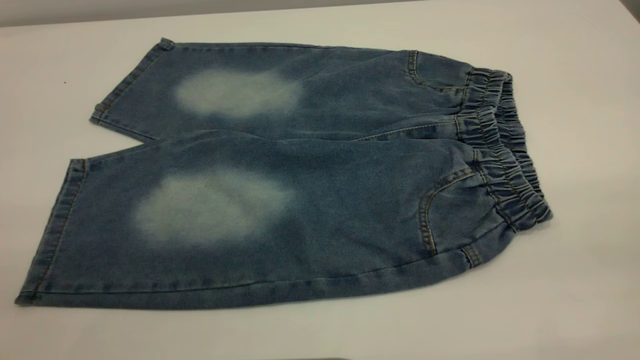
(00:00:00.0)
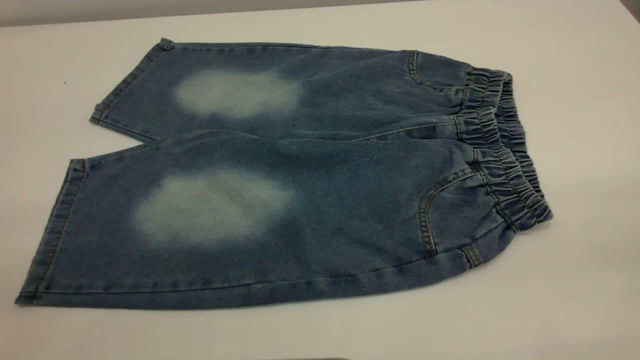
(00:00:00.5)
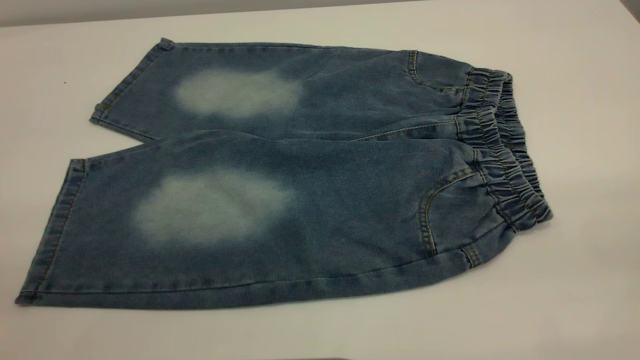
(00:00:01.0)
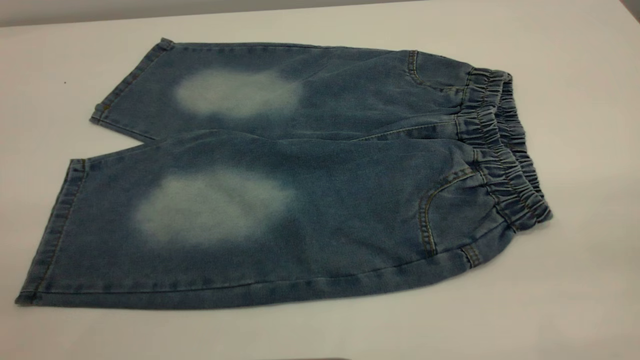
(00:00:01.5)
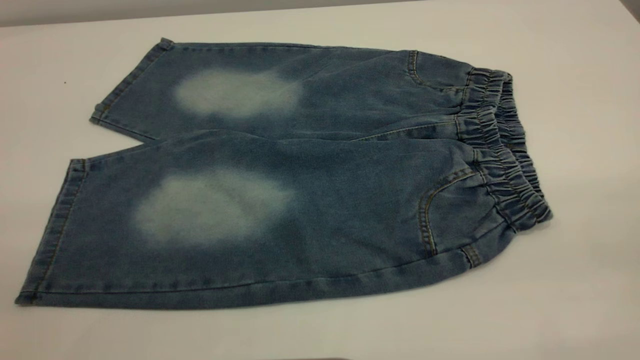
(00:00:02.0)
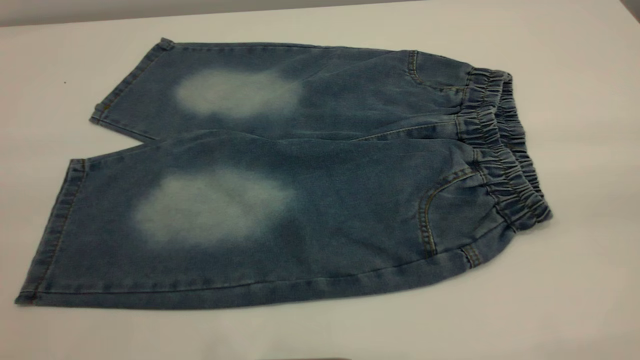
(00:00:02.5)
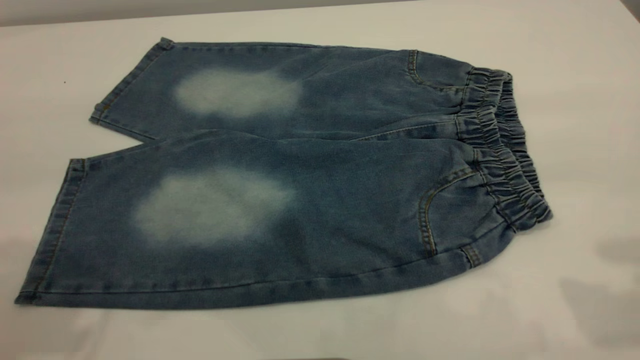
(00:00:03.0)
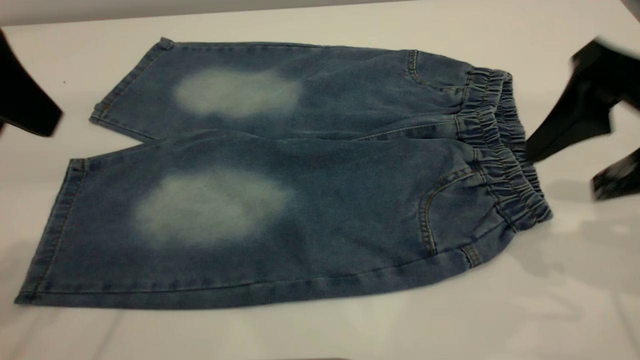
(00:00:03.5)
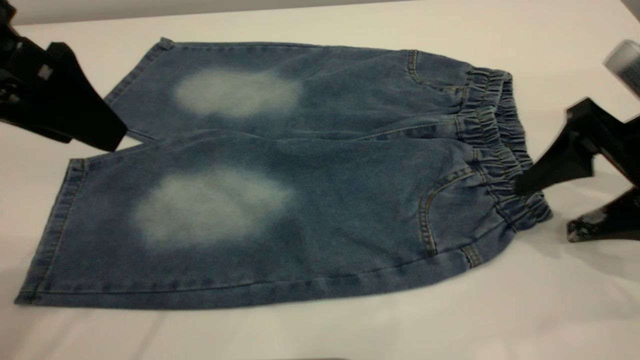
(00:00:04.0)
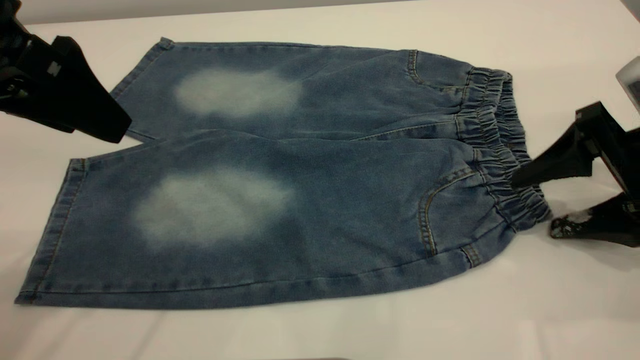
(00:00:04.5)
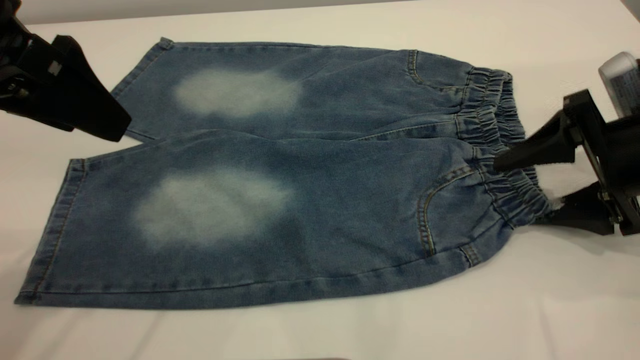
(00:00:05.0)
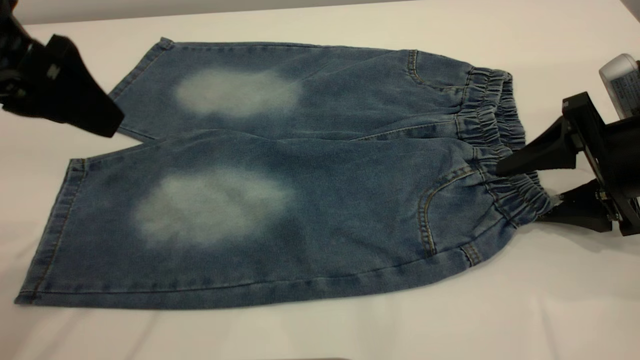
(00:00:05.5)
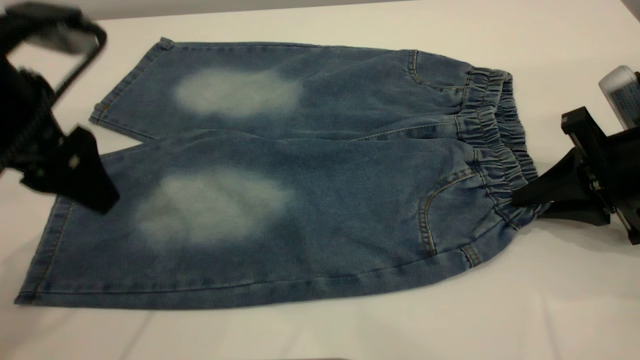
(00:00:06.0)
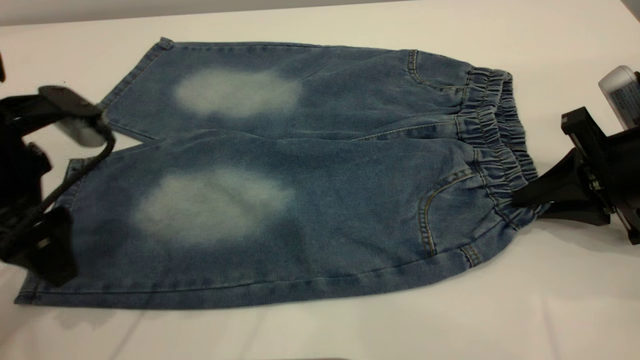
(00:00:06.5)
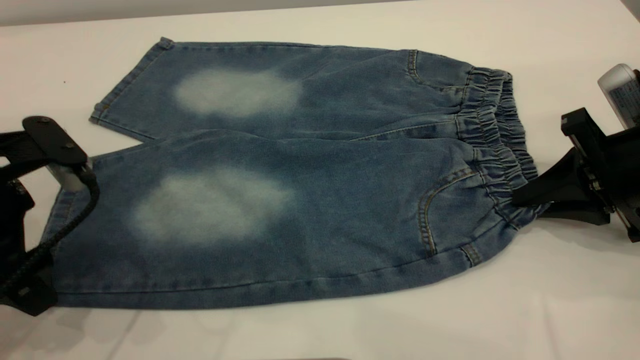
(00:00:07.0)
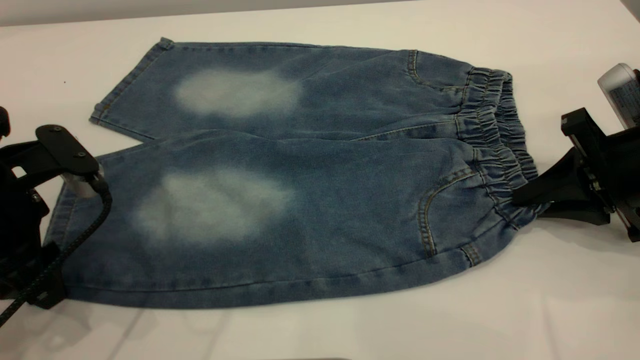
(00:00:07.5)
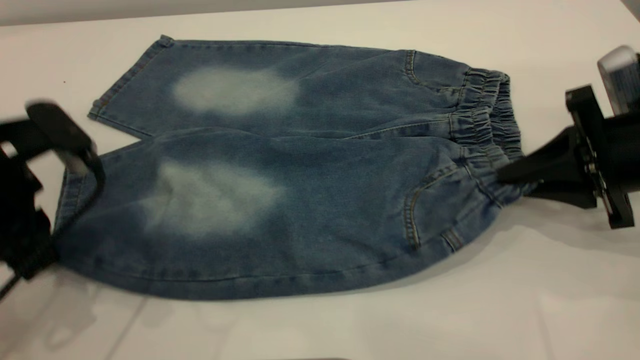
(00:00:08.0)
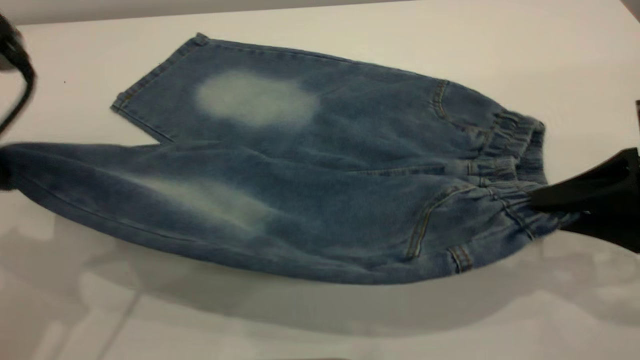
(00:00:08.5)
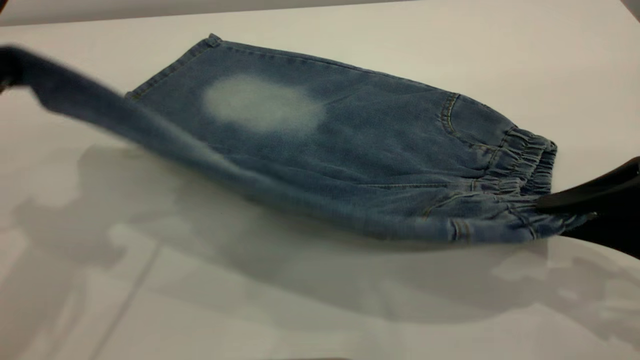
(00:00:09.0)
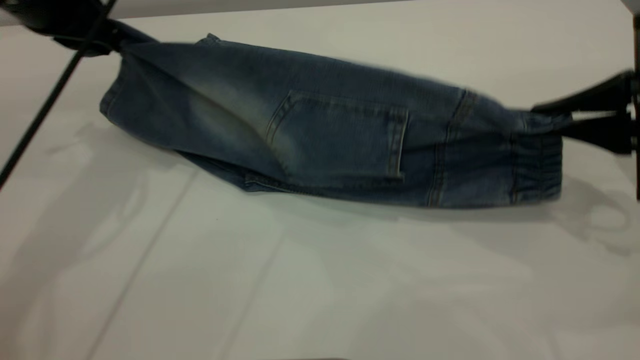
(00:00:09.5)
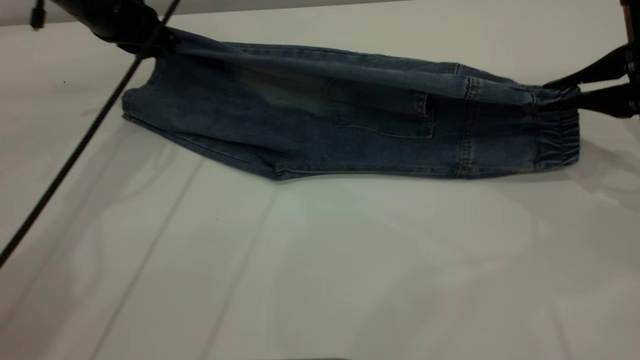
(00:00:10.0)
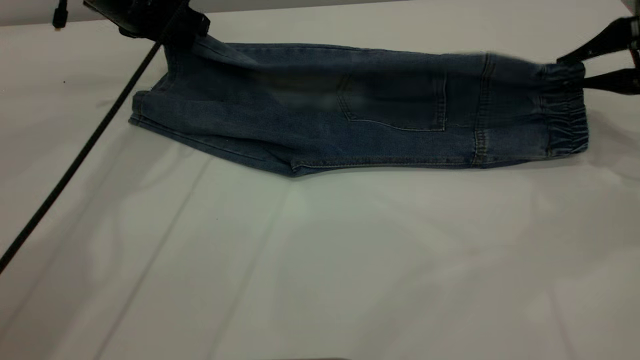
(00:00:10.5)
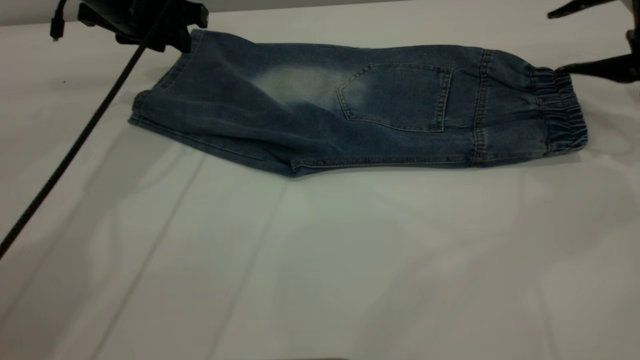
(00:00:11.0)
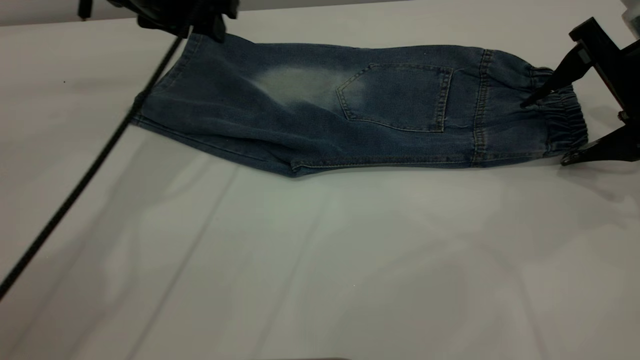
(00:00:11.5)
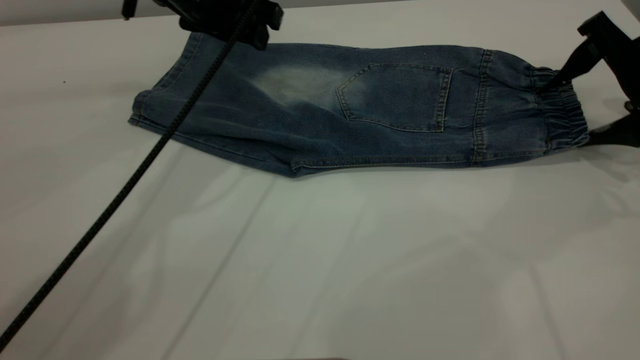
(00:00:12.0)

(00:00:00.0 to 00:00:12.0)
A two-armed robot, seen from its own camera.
Step, 00:00:00.0 - 00:00:11.0: Fold the bottom of the pants upward.
00:00:00.0 - 00:00:02.0: Both grippers stay about where they are.
00:00:02.0 - 00:00:04.0: The left gripper moves forward, roughly 25 cm, while the right gripper moves forward and downward, roughly 35 cm.
00:00:04.0 - 00:00:06.0: The right gripper closes its fingers. The left gripper shifts some 5 cm downward.
00:00:06.0 - 00:00:08.0: The left gripper closes.
00:00:08.0 - 00:00:10.0: The left gripper goes roughly 20 cm forward; the right gripper ends up about 10 cm from where it was.
00:00:10.0 - 00:00:12.0: The left gripper travels to the right by some 10 cm, and opens; the right gripper opens its fingers.

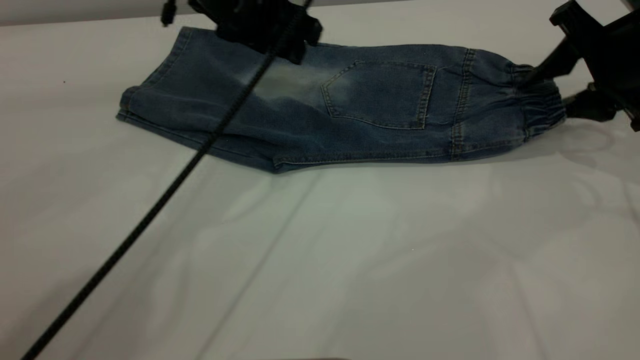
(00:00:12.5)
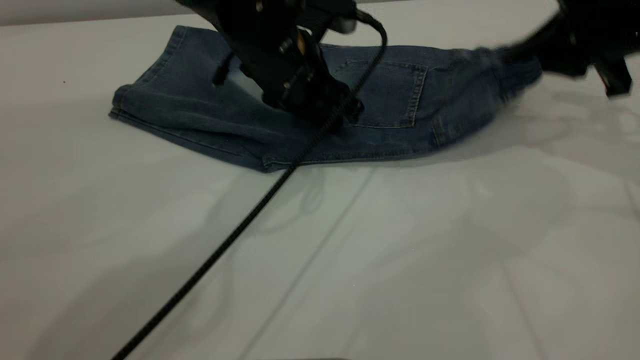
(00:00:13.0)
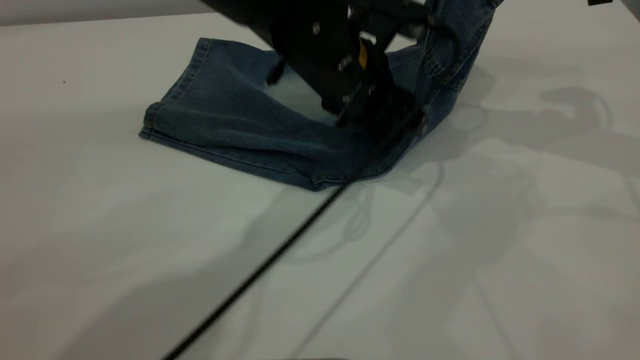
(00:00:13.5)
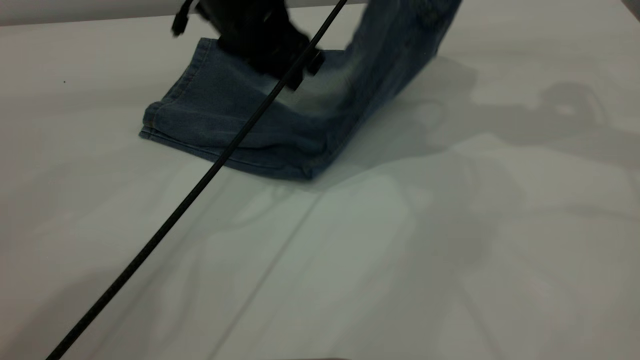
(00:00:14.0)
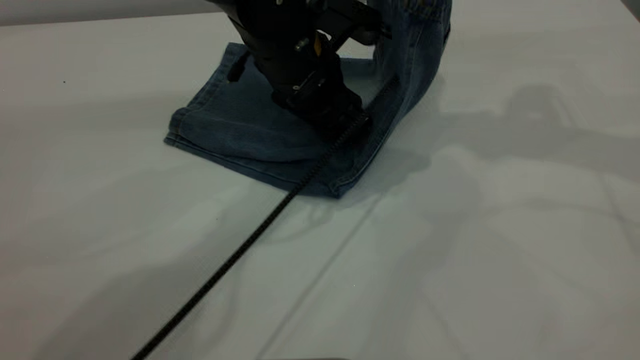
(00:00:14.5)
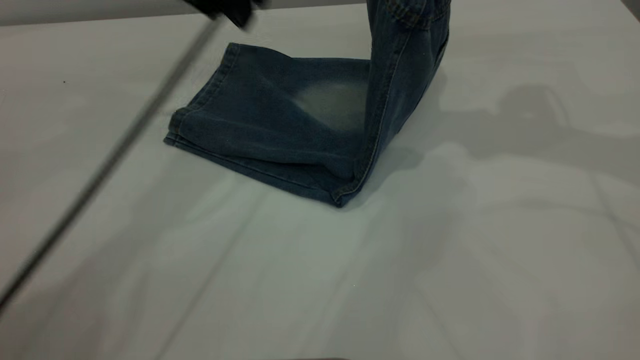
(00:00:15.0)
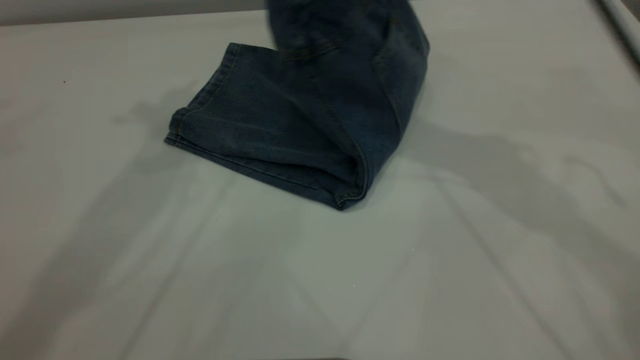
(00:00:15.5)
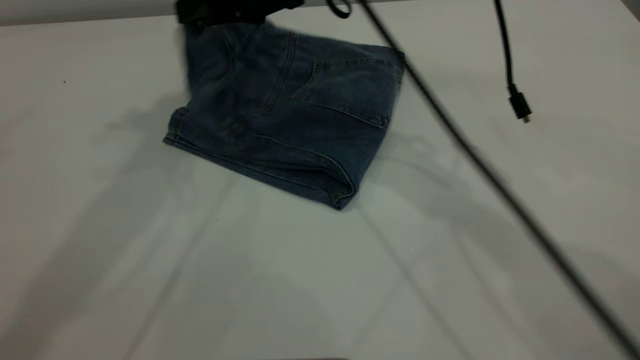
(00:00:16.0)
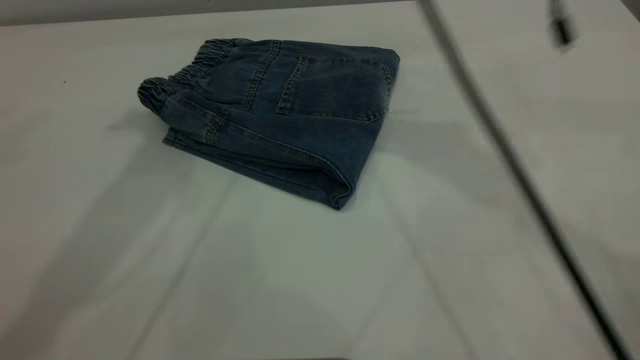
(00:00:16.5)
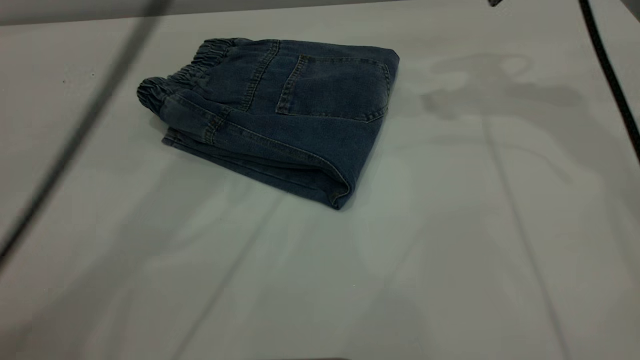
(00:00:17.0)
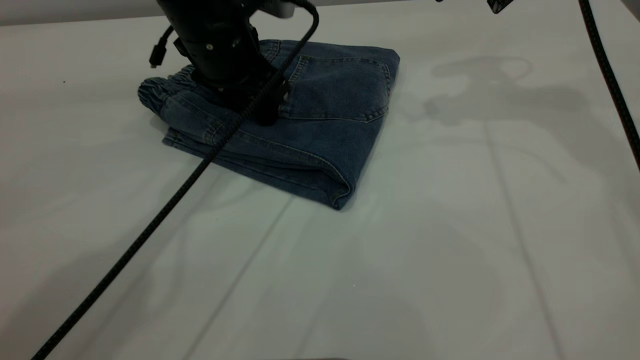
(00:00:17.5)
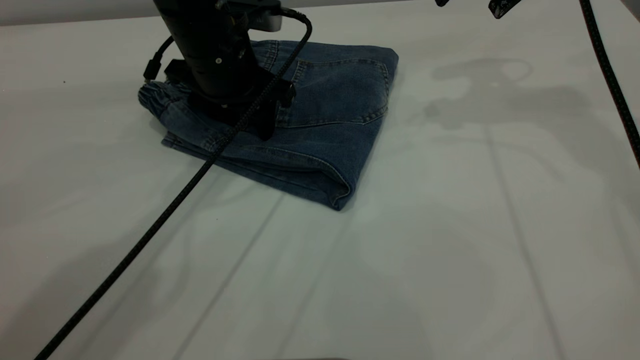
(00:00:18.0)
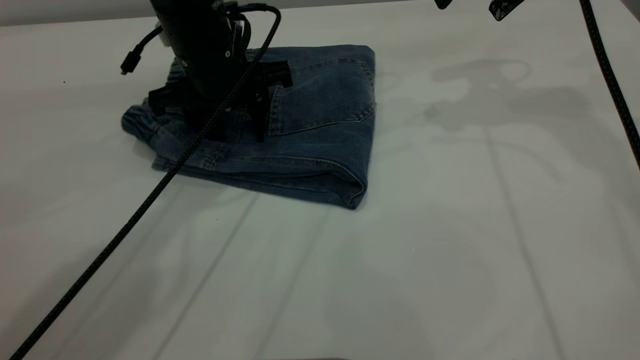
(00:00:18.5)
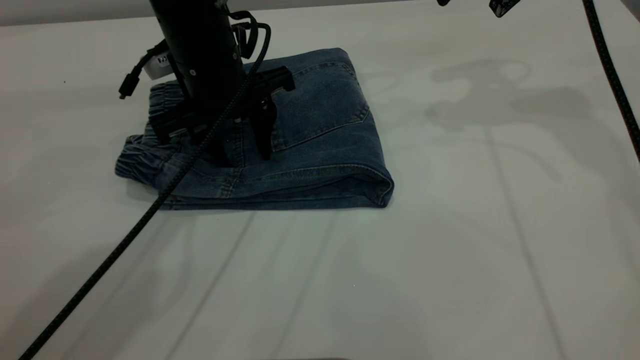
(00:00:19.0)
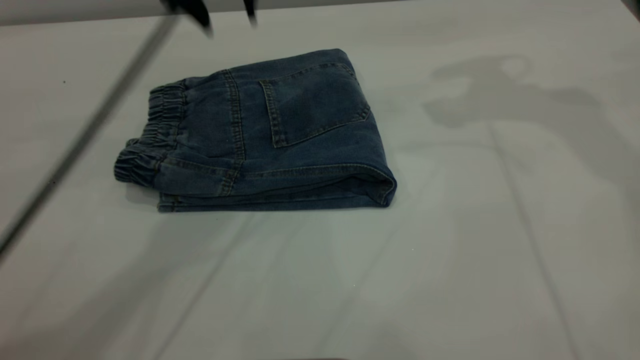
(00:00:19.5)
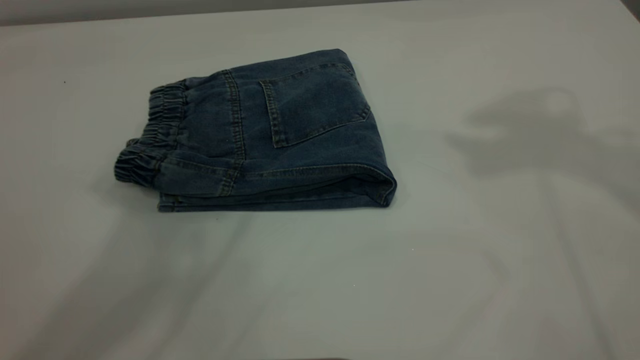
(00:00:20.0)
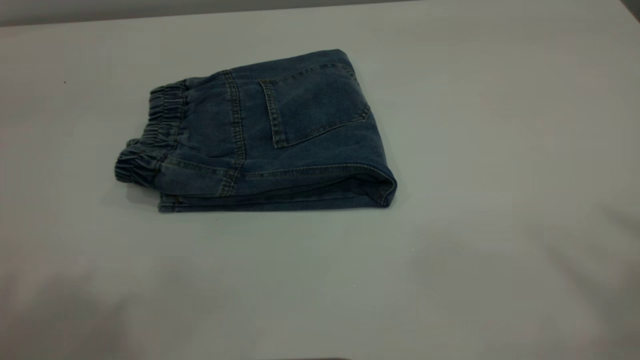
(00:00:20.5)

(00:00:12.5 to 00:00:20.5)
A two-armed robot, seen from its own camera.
Step, 00:00:12.5 - 00:00:16.5: Fold your pants from right to left.
00:00:12.5 - 00:00:14.5: The left gripper swings left and right, roughly 10 cm each way, with 2 reversals. The right gripper goes some 15 cm upward and to the left, and closes its fingers.
00:00:14.5 - 00:00:16.5: The left gripper travels upward and to the left by some 30 cm, while the right gripper is displaced to the left by roughly 15 cm, and opens its fingers.
00:00:16.5 - 00:00:18.5: The left gripper moves downward, some 25 cm; the right gripper shifts some 15 cm to the right.
00:00:18.5 - 00:00:20.5: The grippers both shift upward and backward by approximately 50 cm.
